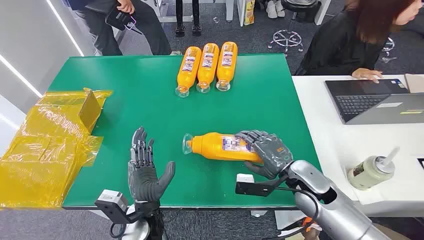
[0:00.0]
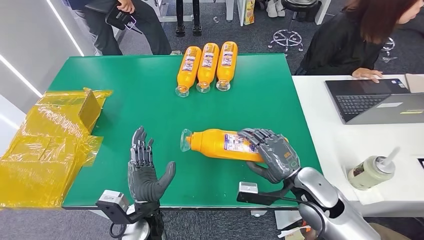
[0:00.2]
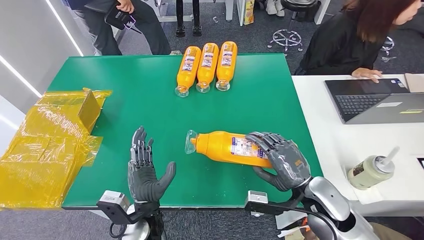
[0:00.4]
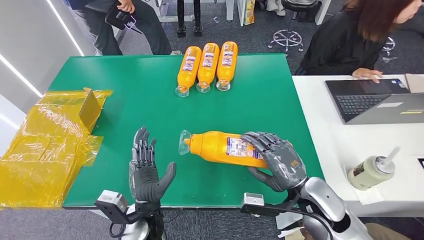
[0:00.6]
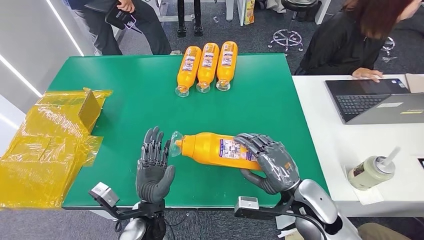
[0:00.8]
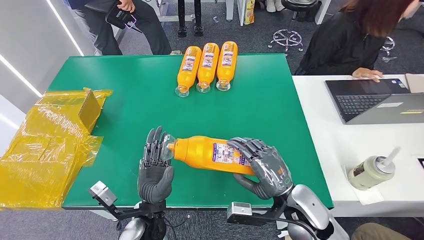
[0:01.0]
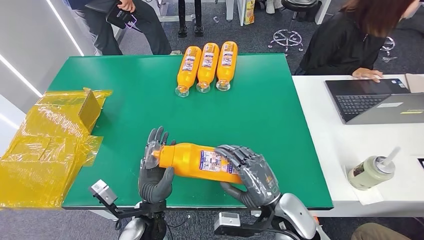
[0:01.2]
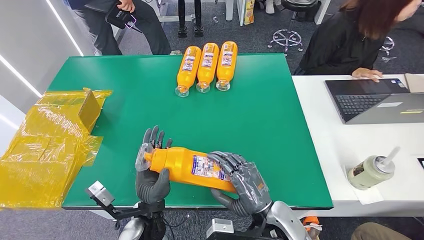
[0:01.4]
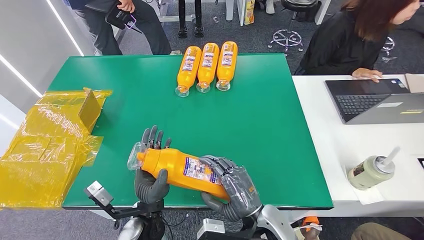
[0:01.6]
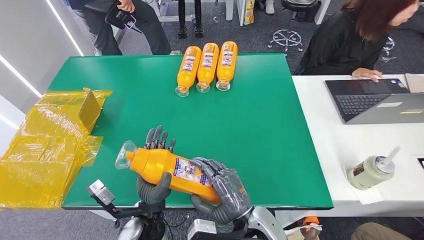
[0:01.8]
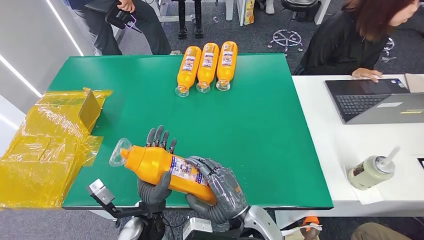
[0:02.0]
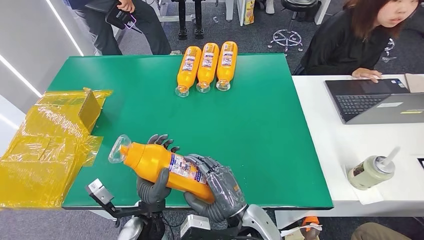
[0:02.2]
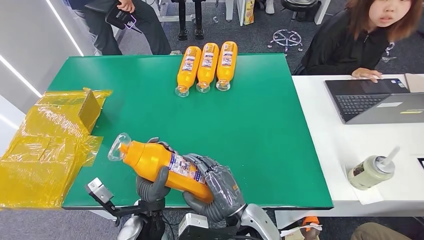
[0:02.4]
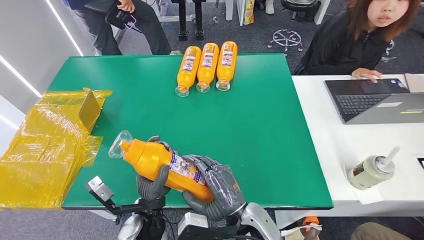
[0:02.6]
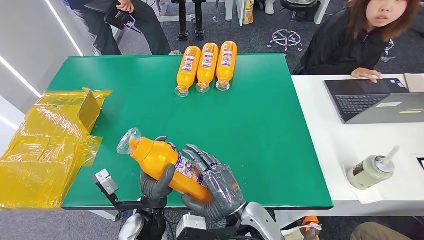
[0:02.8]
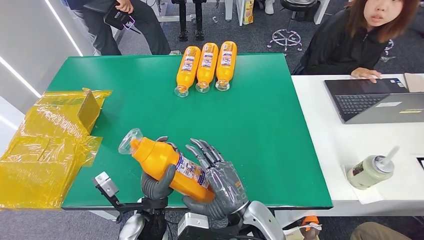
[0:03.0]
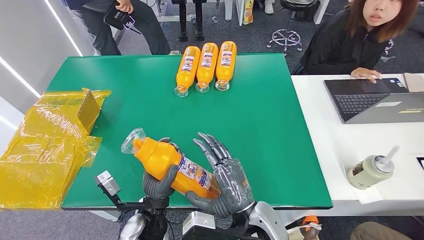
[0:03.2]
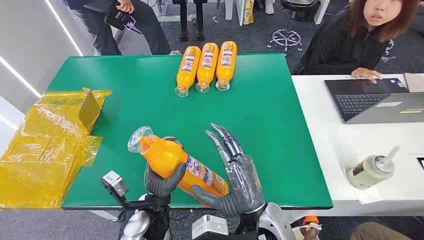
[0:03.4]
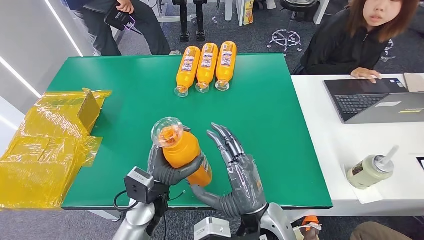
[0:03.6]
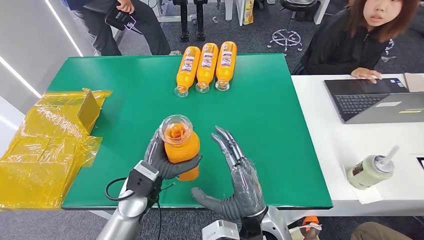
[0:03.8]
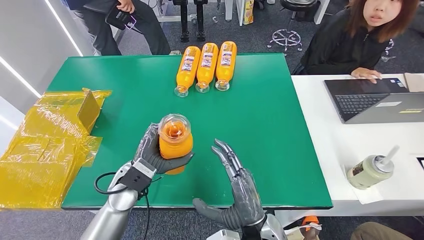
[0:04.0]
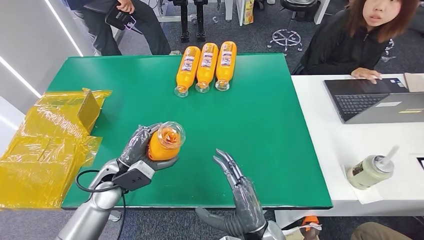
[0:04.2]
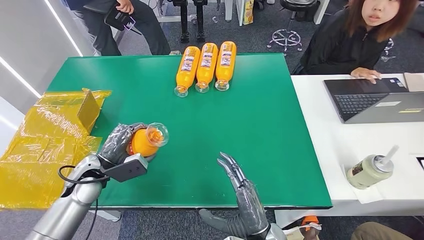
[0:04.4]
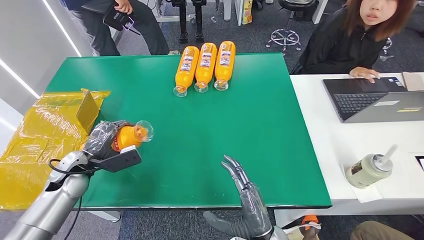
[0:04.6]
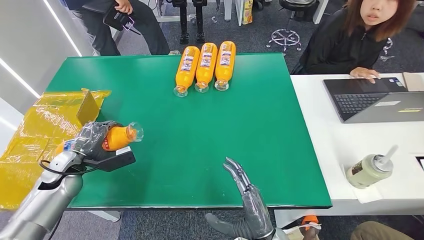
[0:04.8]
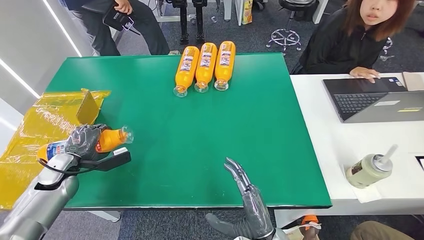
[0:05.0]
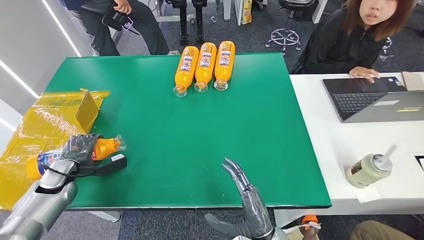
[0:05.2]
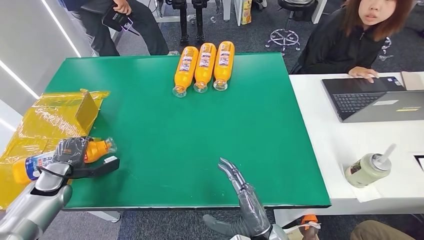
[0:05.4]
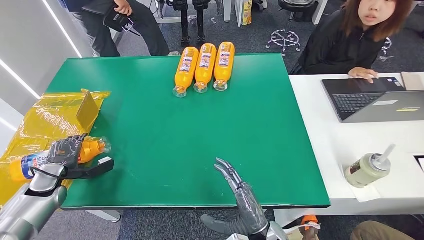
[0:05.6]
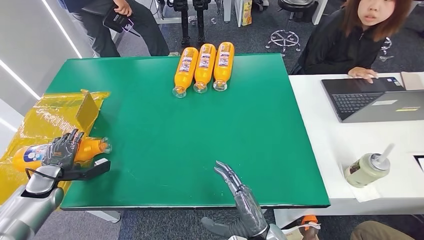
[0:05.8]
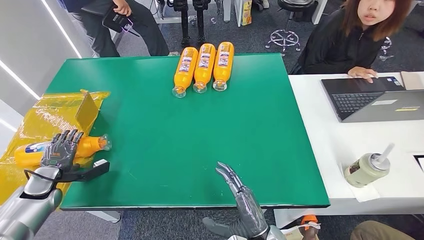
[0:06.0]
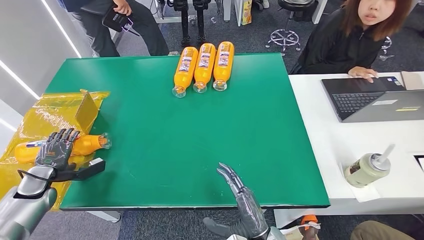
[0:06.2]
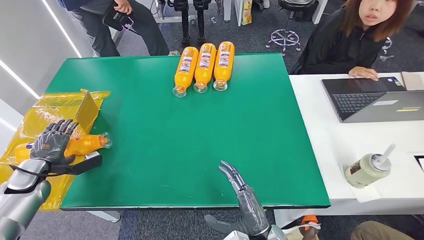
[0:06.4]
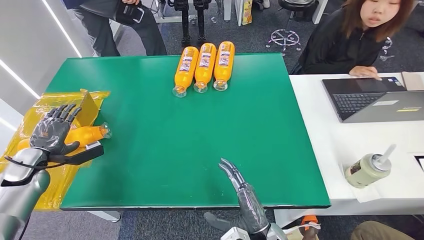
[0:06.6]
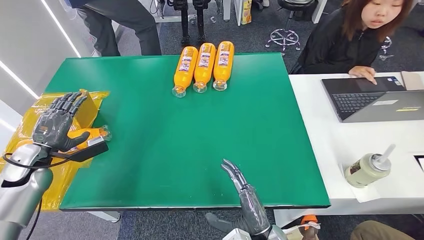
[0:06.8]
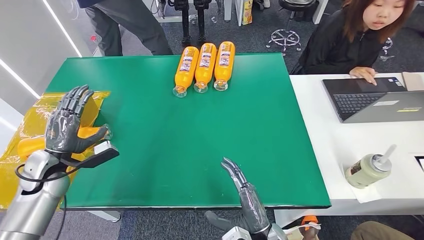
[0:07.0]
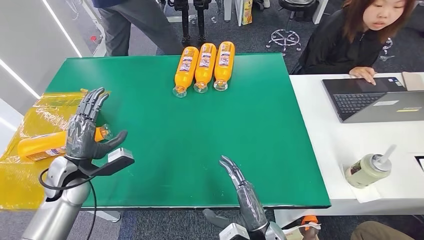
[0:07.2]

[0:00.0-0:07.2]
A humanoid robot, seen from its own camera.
Step, 0:00.0 to 0:02.0: Pick up the bottle from the table.
Step, 0:02.2 to 0:07.0: Turn the bottle to the front side.
0:01.4 to 0:02.8: The right hand goes some 5 cm to the left.
0:02.8 to 0:04.4: The right hand moves some 5 cm. Meanwhile the left hand moves to the left and forward, some 25 cm.
0:05.8 to 0:07.2: The left hand travels to the right by about 15 cm.

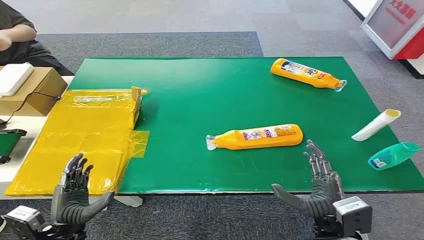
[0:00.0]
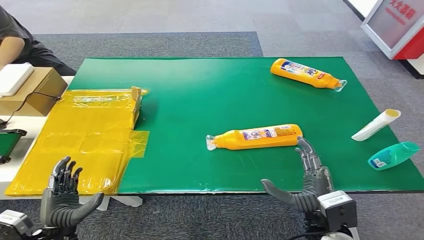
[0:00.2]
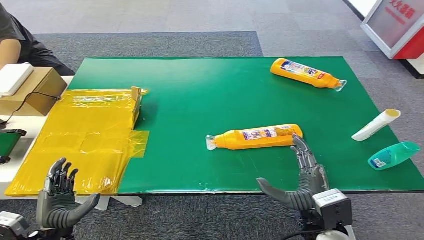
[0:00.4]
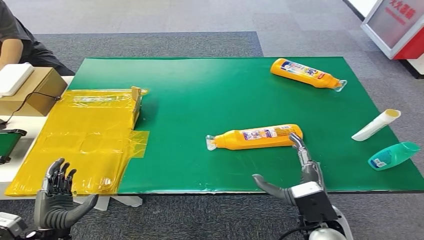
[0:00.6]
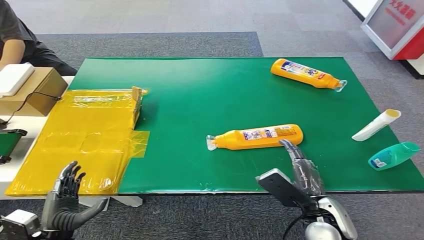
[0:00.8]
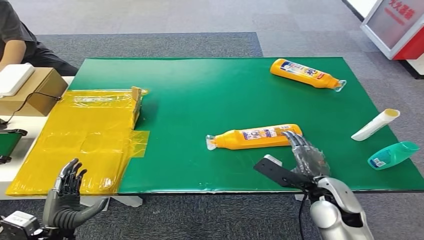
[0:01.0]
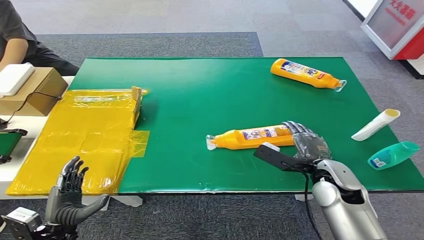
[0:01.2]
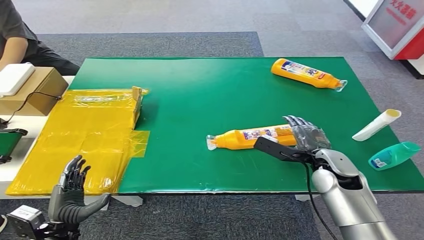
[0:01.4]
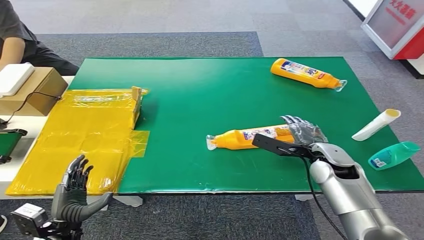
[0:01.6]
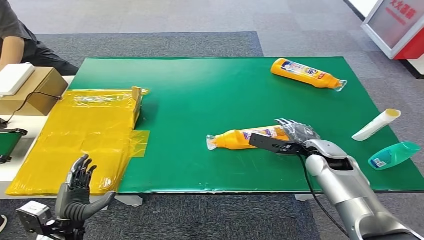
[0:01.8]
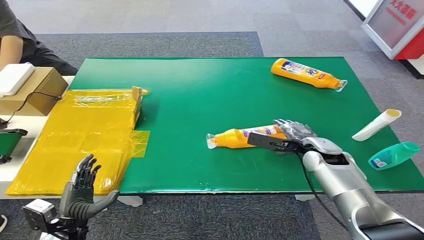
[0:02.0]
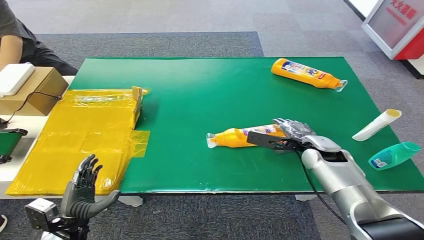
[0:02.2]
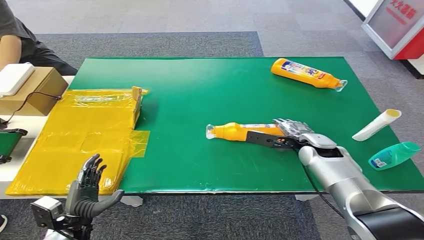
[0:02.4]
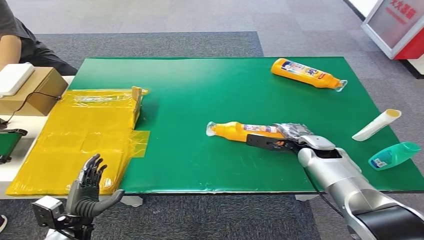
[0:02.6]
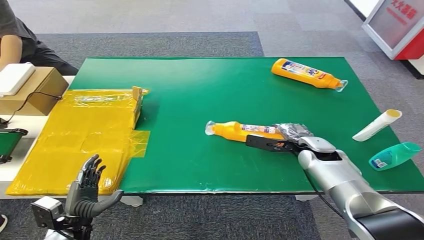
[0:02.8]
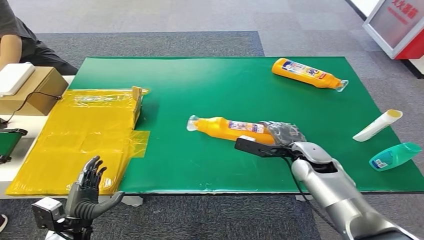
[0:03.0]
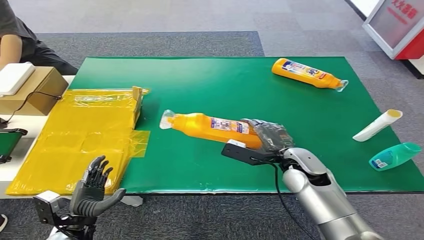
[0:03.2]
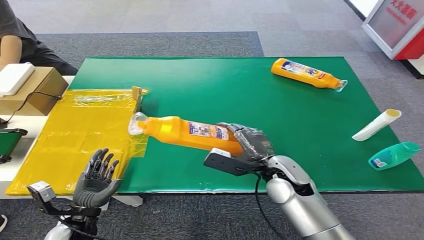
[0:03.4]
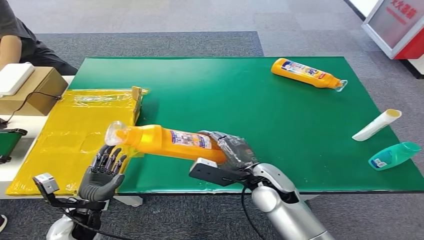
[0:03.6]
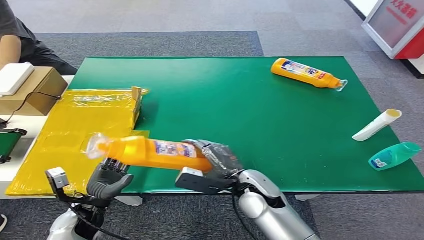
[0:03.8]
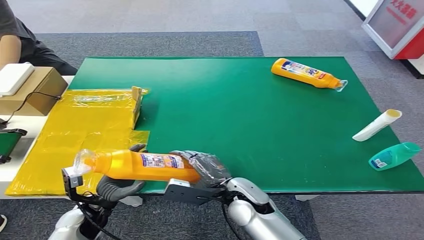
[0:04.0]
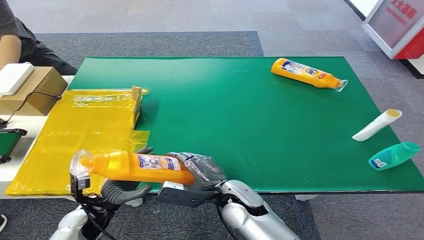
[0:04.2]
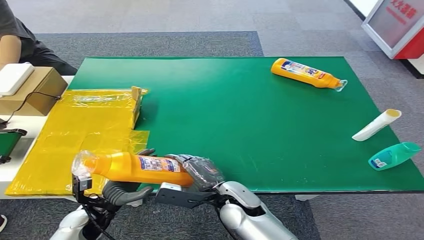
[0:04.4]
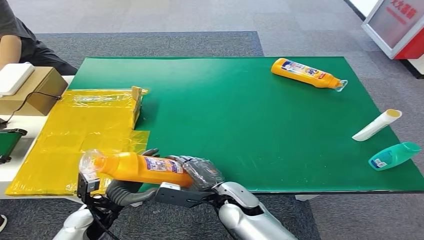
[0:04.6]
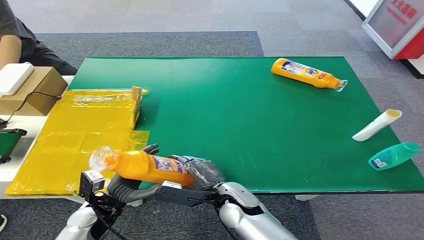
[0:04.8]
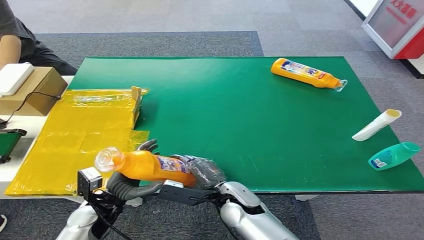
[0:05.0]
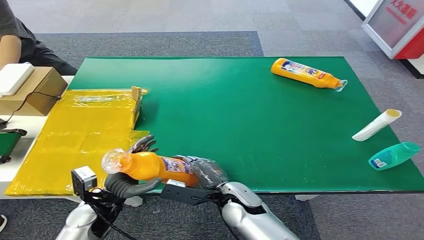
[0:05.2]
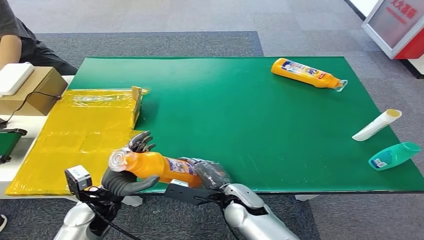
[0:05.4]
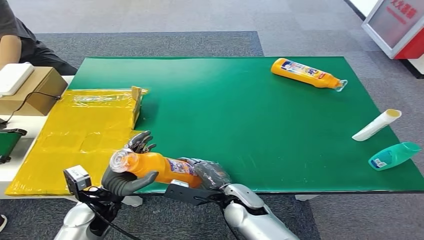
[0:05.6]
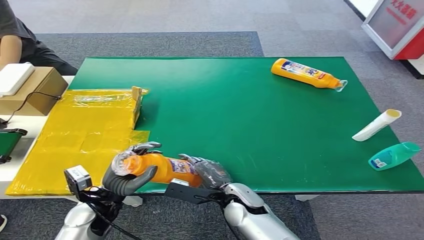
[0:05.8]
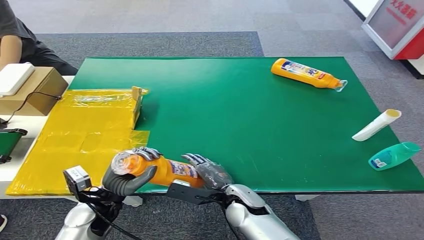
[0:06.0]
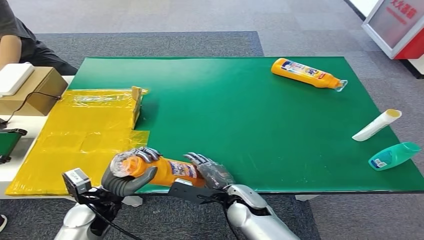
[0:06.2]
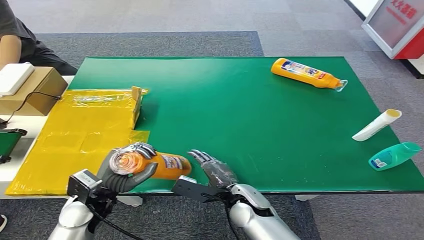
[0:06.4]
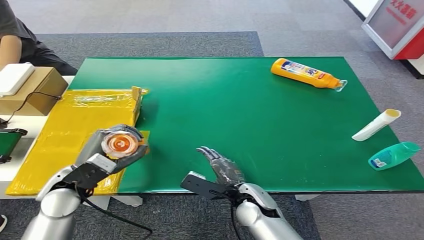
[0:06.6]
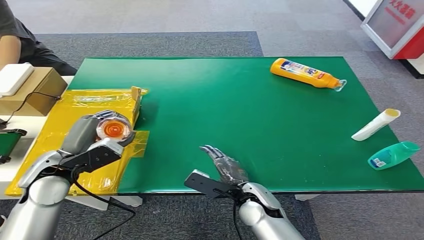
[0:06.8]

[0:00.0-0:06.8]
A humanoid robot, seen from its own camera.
Step, 0:00.0 to 0:03.4: Pick up the bottle from the table.
Step, 0:03.6 to 0:06.8: Turn the bottle to the front side.
0:01.4 to 0:02.8: The right hand travels forward by some 5 cm.
0:02.8 to 0:04.0: The left hand is displaced forward by some 5 cm. Meanwhile the right hand moves to the left and backward, some 25 cm.
0:04.0 to 0:05.4: The left hand changes place by approximately 5 cm.
0:05.4 to 0:06.8: The left hand goes roughly 15 cm upward, to the left and forward.

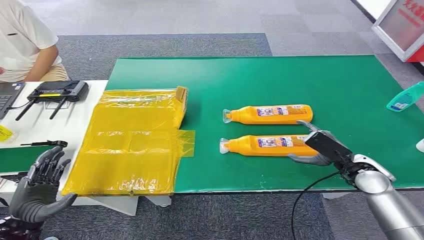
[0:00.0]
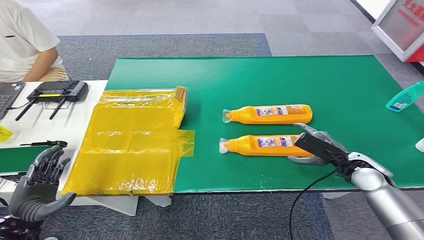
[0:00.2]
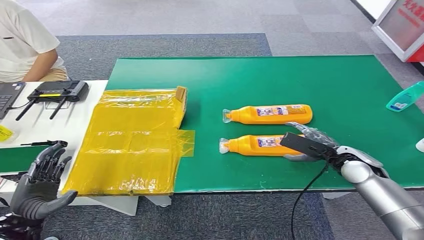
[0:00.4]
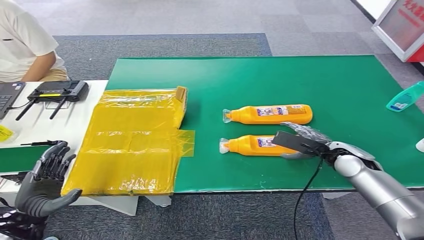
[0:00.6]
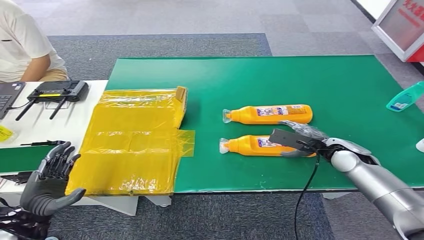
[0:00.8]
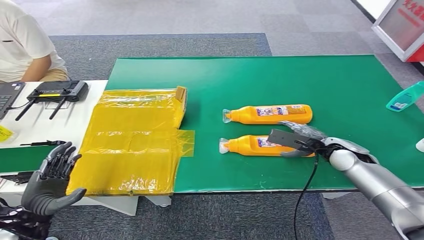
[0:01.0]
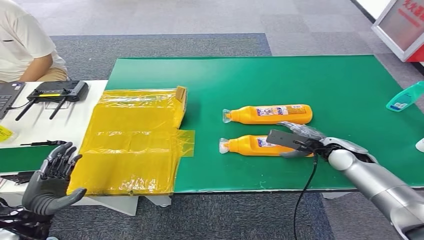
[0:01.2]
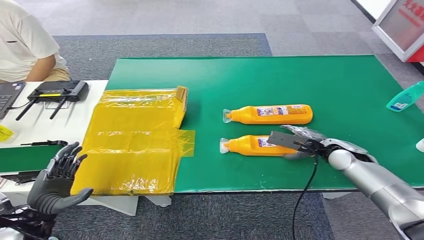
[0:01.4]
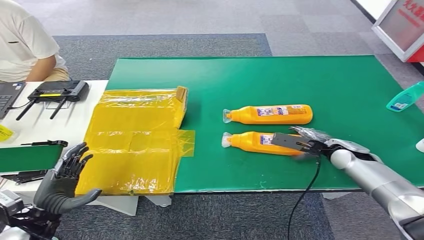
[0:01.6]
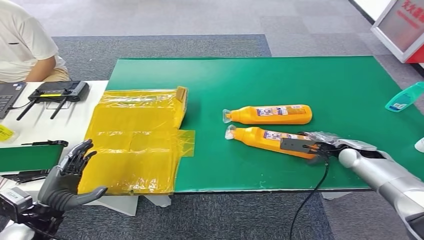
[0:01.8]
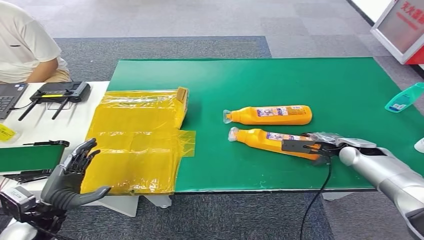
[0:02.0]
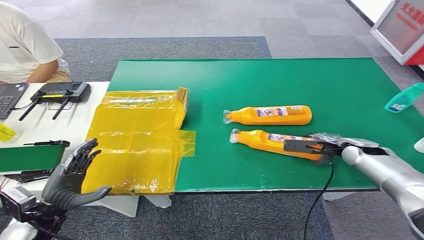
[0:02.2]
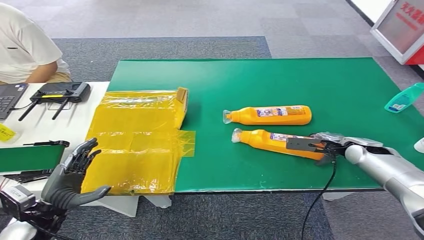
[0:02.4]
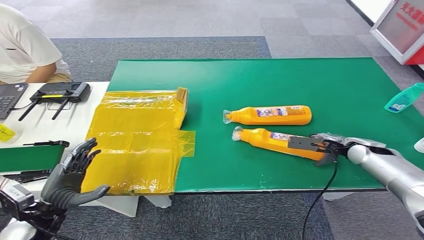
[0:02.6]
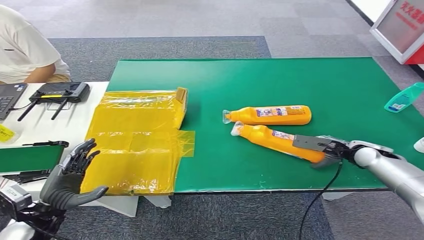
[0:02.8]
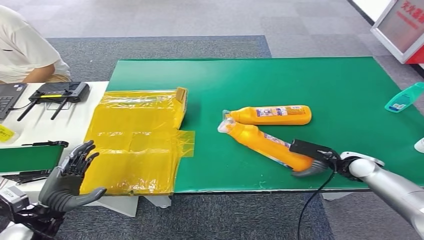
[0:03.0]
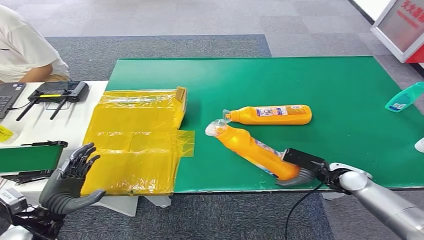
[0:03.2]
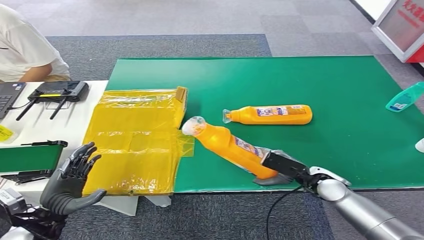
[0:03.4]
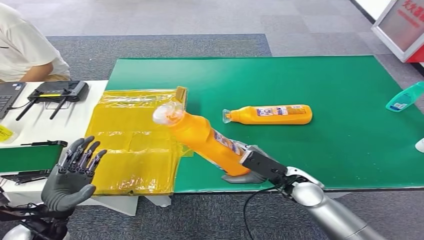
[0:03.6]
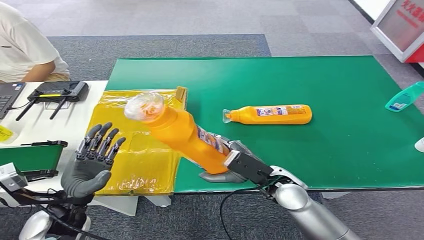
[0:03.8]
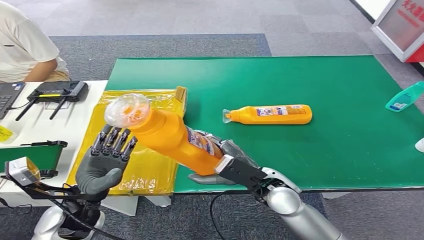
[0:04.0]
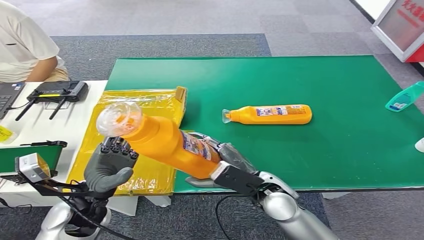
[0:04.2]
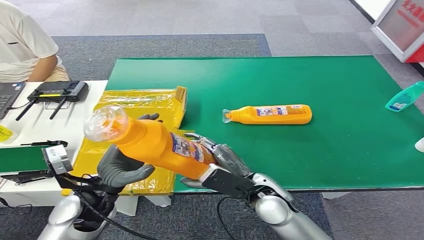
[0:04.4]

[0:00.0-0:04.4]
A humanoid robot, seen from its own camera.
Step, 0:00.0 to 0:03.2: Pick up the bottle from the table.
0:01.4 to 0:03.0: The right hand moves some 5 cm.
